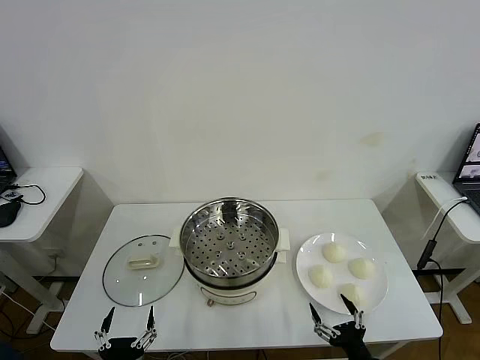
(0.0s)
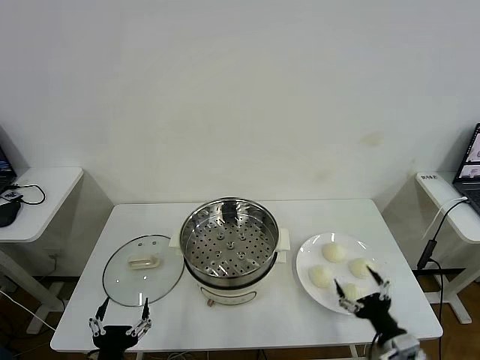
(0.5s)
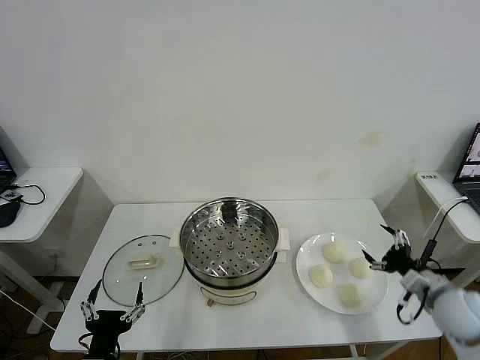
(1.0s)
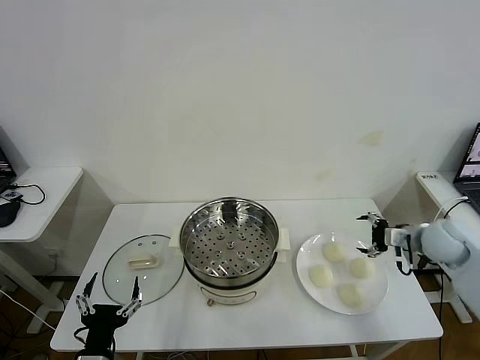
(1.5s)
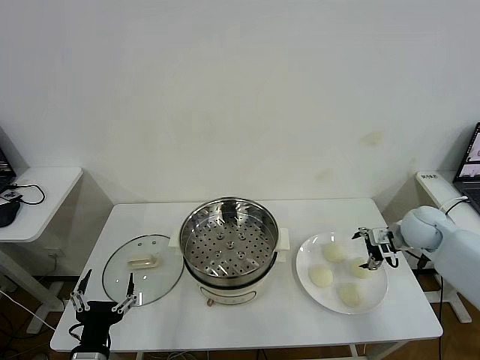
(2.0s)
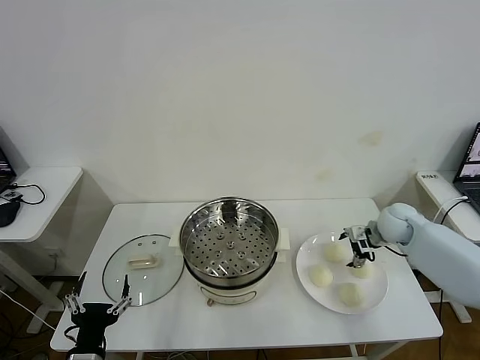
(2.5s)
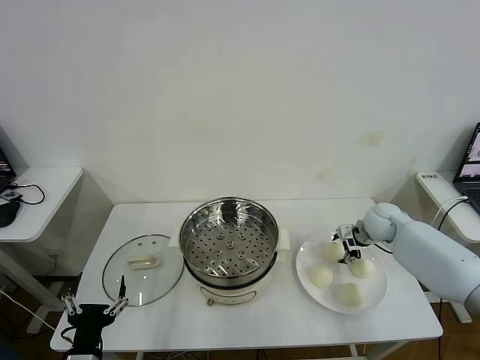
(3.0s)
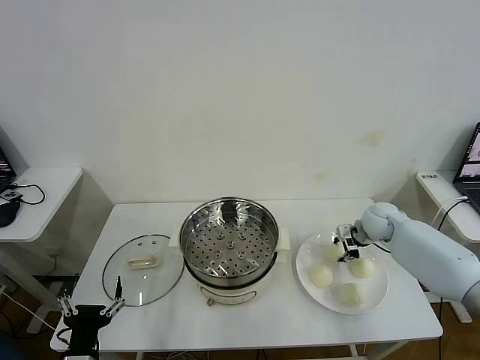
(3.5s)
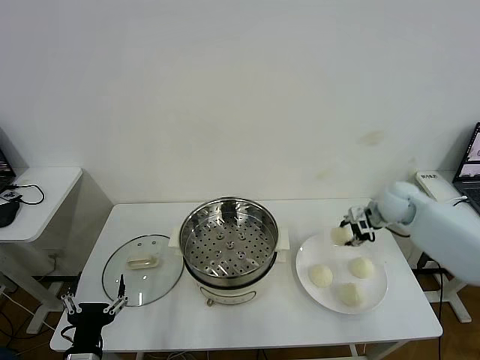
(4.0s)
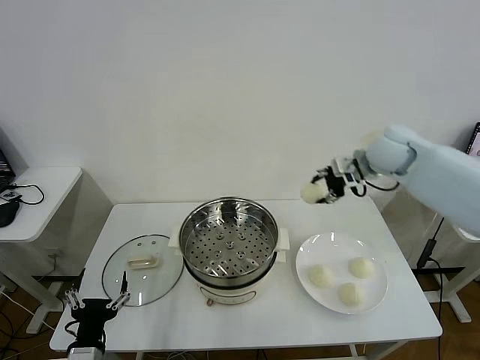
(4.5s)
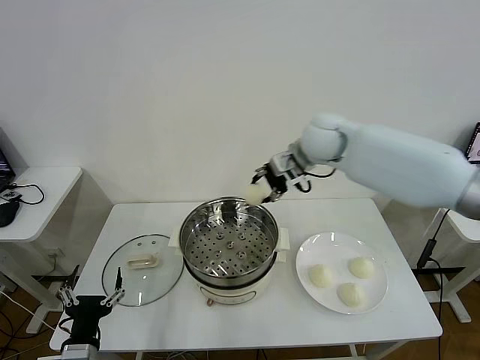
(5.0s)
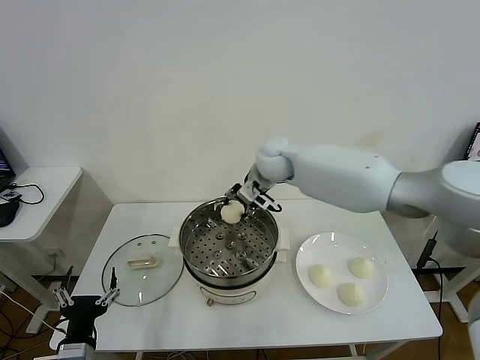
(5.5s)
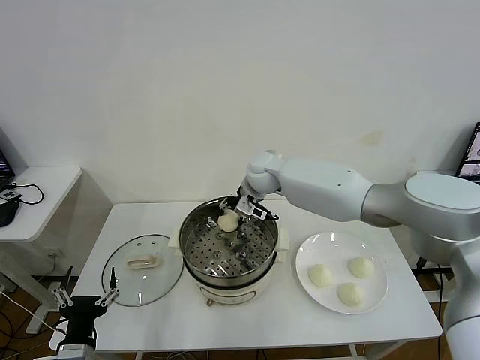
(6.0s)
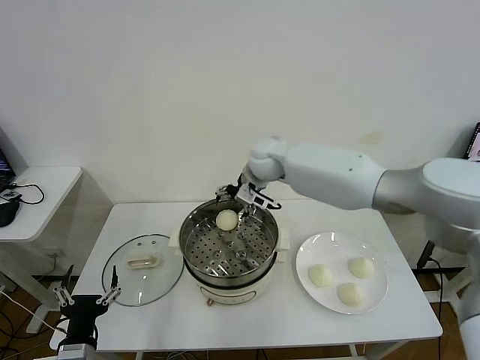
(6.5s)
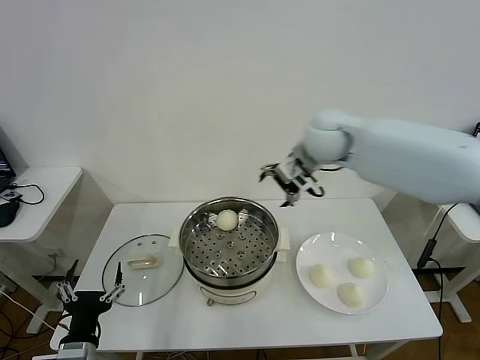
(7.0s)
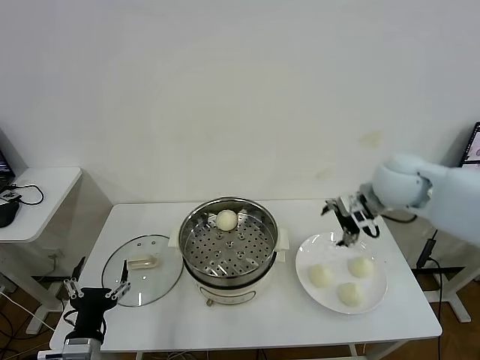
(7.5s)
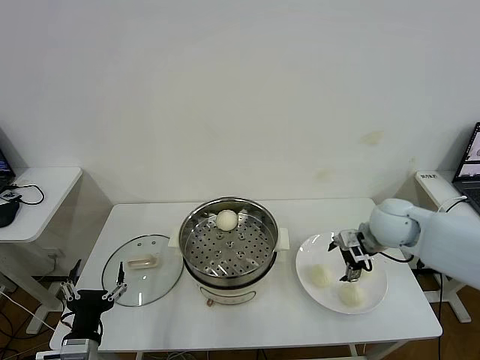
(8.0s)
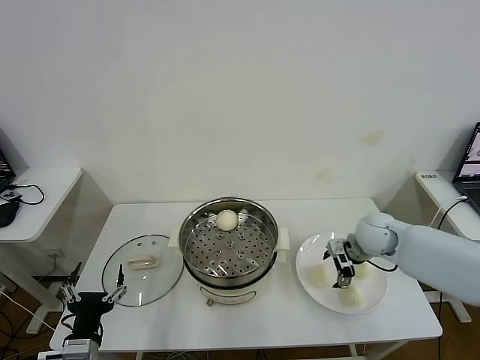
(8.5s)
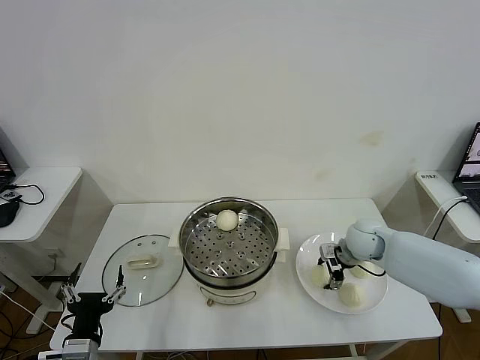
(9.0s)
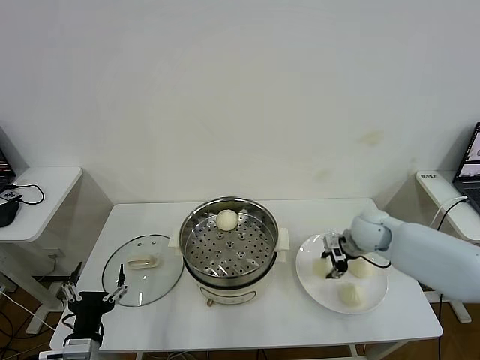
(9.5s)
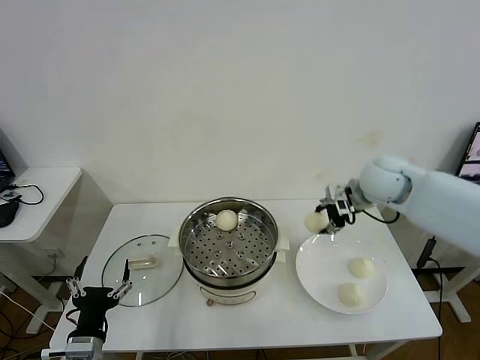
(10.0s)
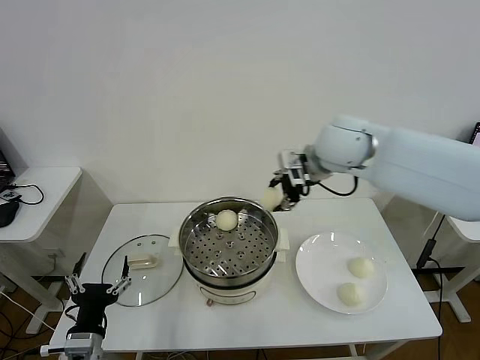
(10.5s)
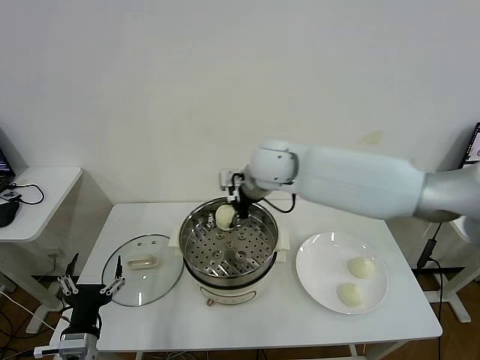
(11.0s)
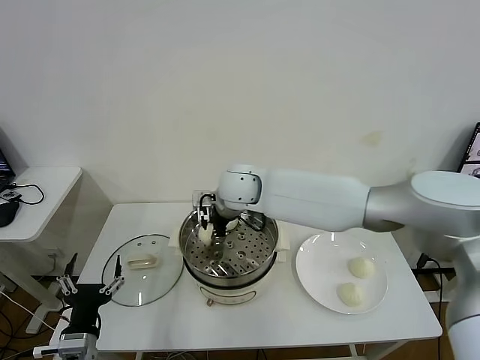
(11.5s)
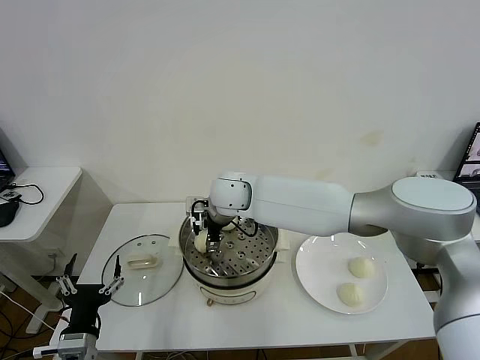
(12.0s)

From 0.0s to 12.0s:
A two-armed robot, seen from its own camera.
Task of the whole recording: take steamed baozi put them in steamer then cover it.
Step, from 0.0s to 3.0s: Grasp the baozi in the plate with right gripper.
Step, from 3.5s to 6.0s: Place the baozi on the steamer with right gripper.
Step, from 6.5s to 9.0s: Grasp the baozi in the plate with right gripper.
From 2.0s to 4.0s: The right gripper is displaced upward by approximately 10 cm, and closes up.
From 4.0s to 6.0s: The right gripper moves to the left, about 30 cm.
From 6.0s to 8.0s: The right gripper is displaced to the right and backward by about 30 cm, and opens.
From 8.0s to 10.0s: The right gripper travels upward by about 15 cm, and closes its fingers.
From 10.0s to 12.0s: The right gripper shifts roughly 30 cm to the left, and opens up.

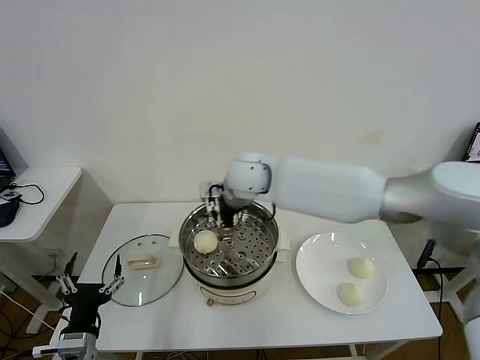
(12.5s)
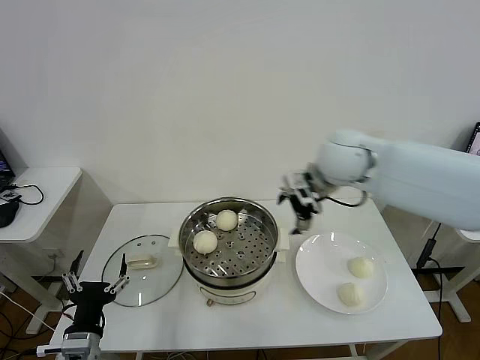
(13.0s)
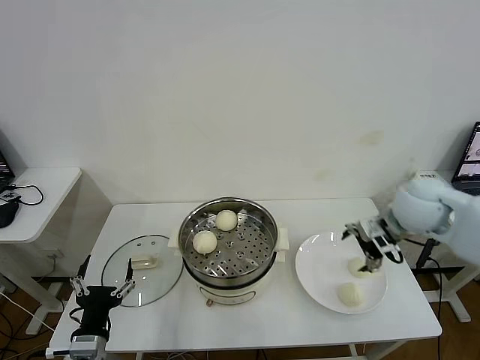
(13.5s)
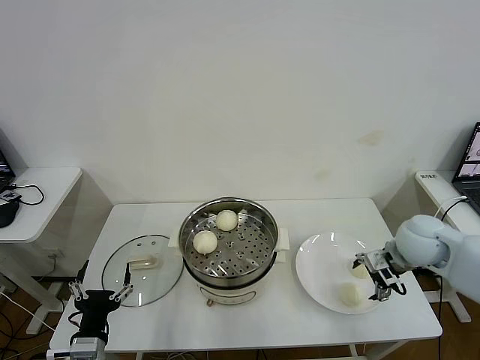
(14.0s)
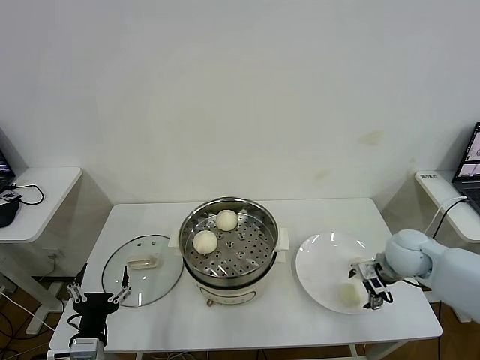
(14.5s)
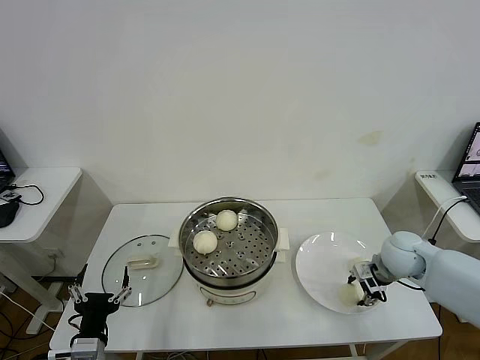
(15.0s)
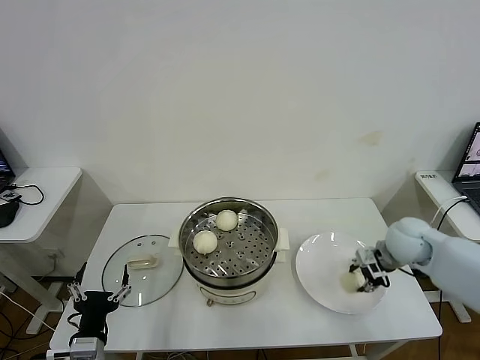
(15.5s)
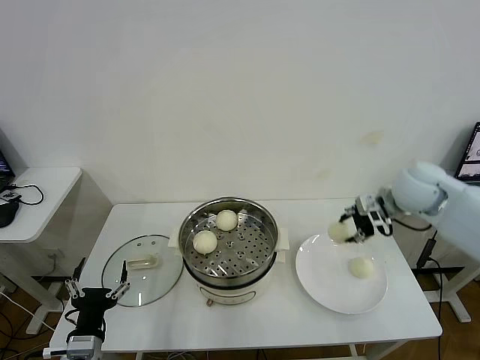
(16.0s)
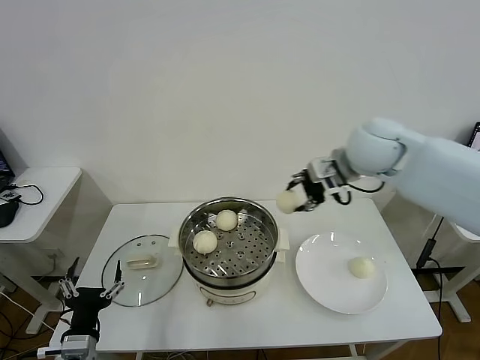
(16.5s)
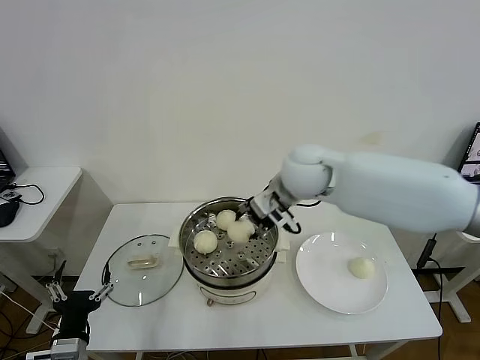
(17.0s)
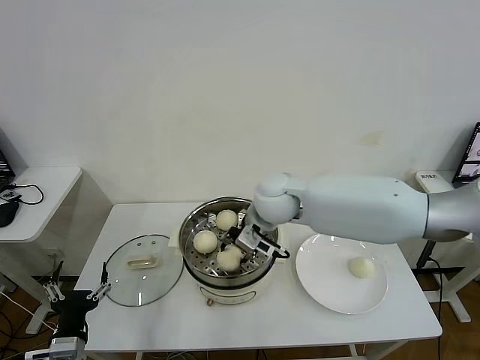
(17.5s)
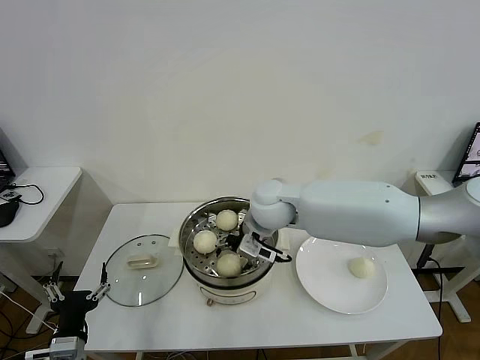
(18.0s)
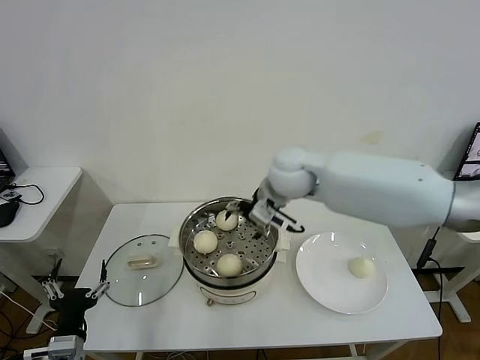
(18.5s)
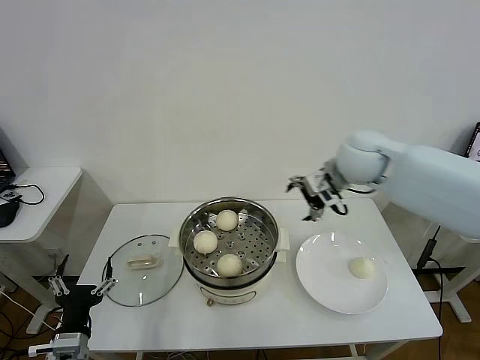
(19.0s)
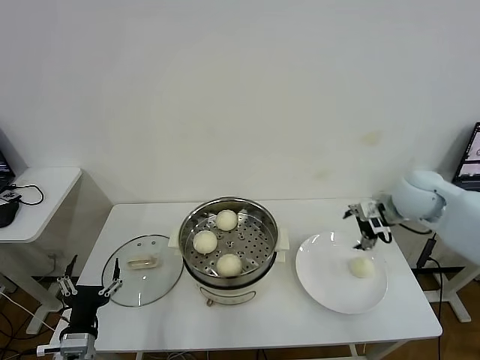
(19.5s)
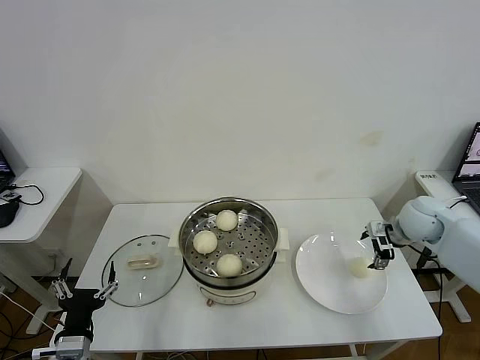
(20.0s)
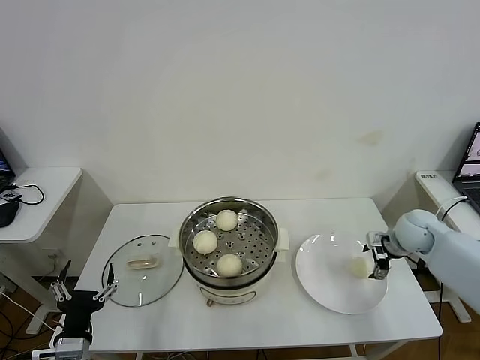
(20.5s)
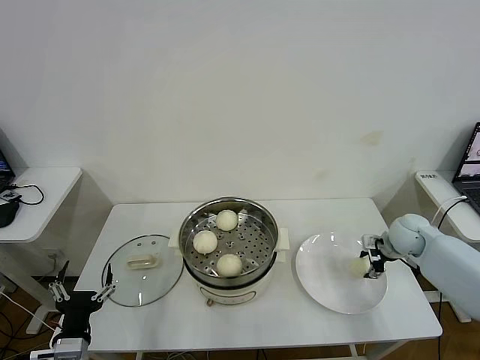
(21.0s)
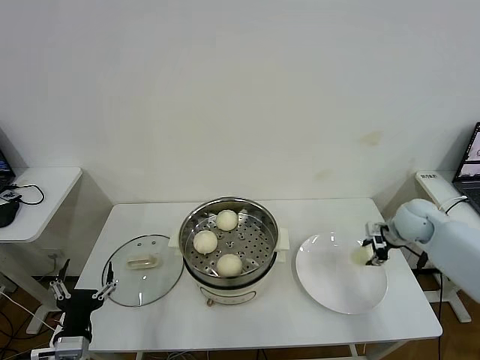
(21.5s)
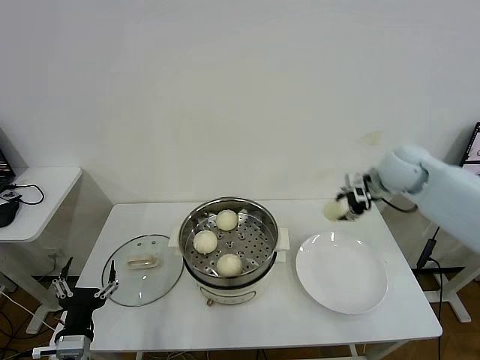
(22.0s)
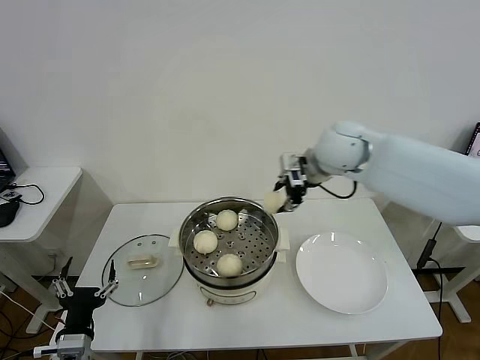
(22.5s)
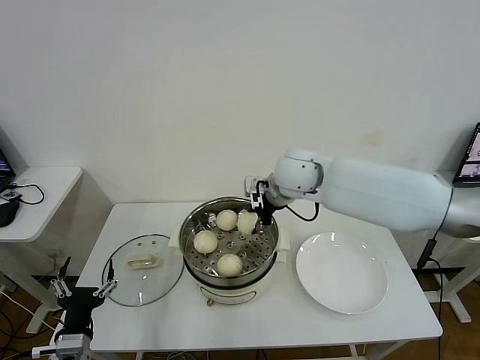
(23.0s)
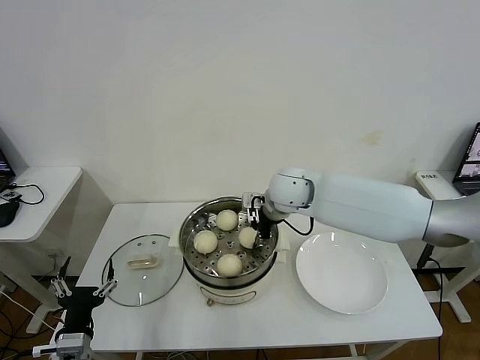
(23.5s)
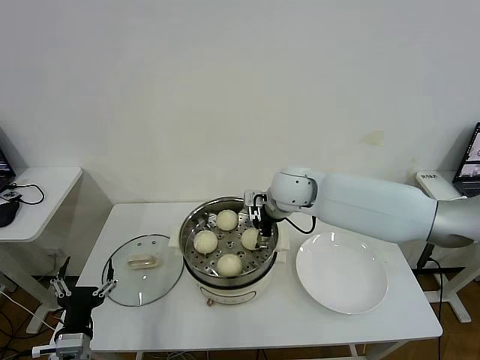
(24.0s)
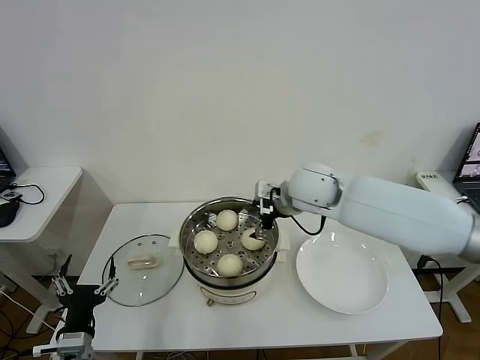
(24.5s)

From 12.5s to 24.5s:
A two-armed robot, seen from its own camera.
Task of the whole recording: take steamed baozi put them in steamer then cover it.
Step, from 12.5s to 15.0s: Grasp the baozi in the plate with right gripper.
Step, from 15.5s to 18.0s: Place the baozi on the steamer with right gripper.
Step, from 18.5s to 21.0s: Grasp the baozi in the plate with right gripper.
Step, from 21.5s to 24.0s: Place the baozi on the steamer with right gripper.
From 12.5s to 14.5s: The right gripper shifts approximately 35 cm to the right and downward.
From 14.5s to 16.5s: The right gripper is displaced upward and to the left by approximately 30 cm, and closes up.
From 16.5s to 18.5s: The right gripper heads to the left and downward, covering some 10 cm, and opens up.
From 18.5s to 20.5s: The right gripper is displaced to the right and downward by about 35 cm.
From 20.5s to 22.5s: The right gripper heads to the left and upward, covering some 30 cm, and closes.
From 22.5s to 24.5s: The right gripper heads downward, covering approximately 5 cm, and opens its fingers.

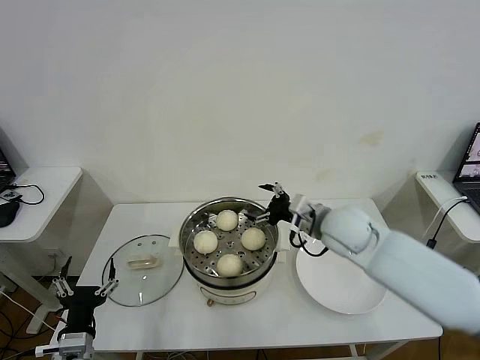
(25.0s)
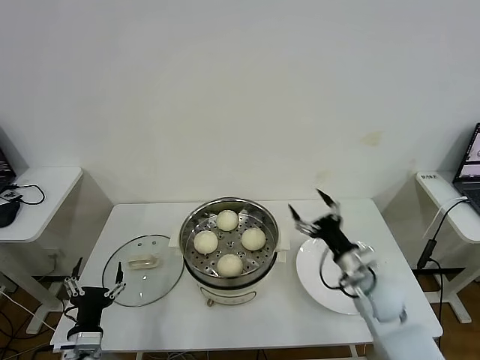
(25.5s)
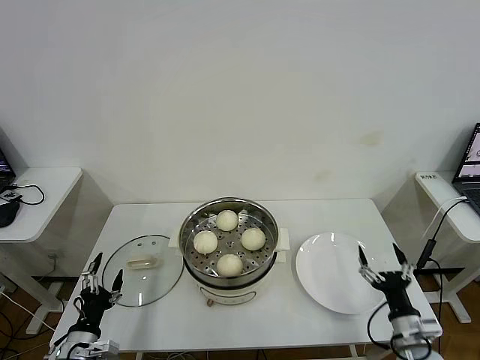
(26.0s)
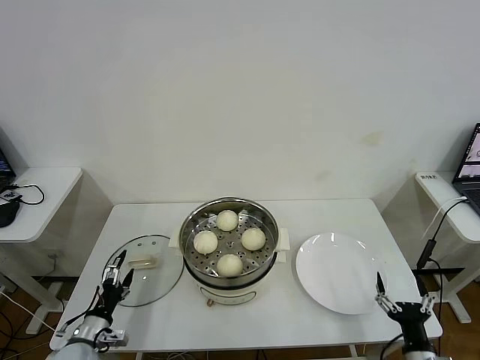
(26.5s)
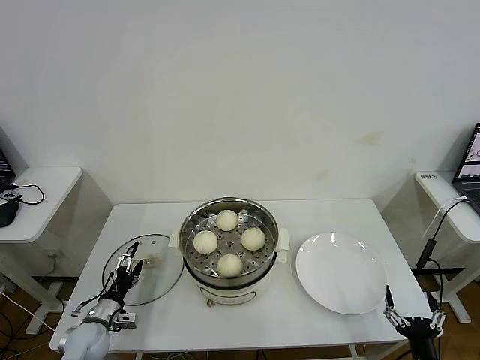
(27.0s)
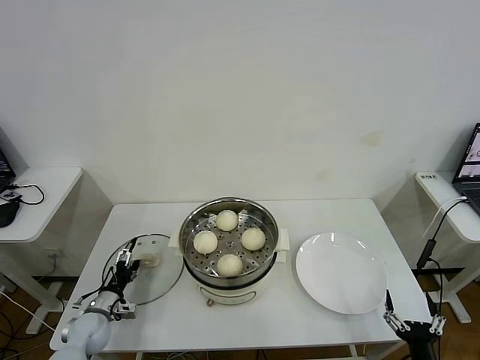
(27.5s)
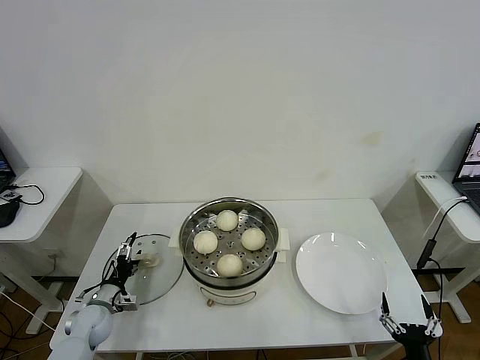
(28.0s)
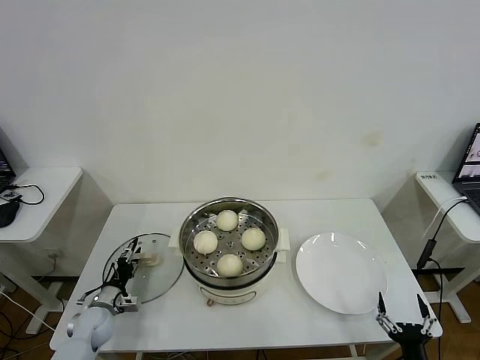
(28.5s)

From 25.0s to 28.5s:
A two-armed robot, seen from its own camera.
Task of the whole recording: take steamed baozi put them in steamer then cover it.
From 25.0s to 27.0s: The left gripper moves forward, downward and to the left, approximately 15 cm. The right gripper goes approximately 40 cm backward, downward and to the right.
From 27.0s to 28.5s: The left gripper heads forward, covering approximately 5 cm, and closes up.
